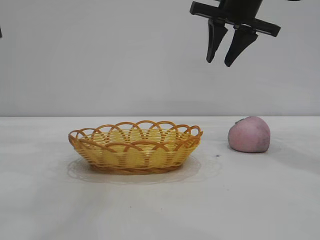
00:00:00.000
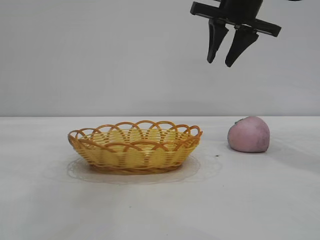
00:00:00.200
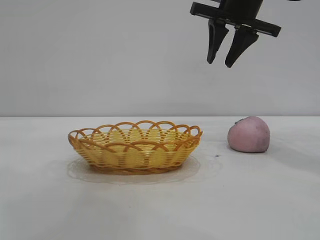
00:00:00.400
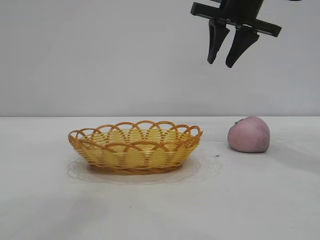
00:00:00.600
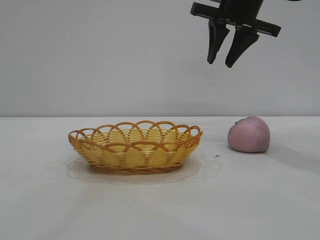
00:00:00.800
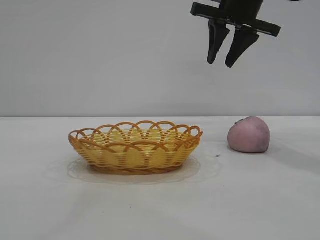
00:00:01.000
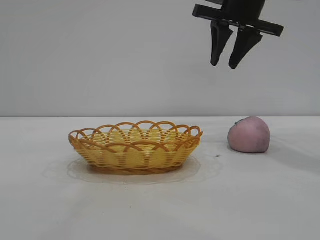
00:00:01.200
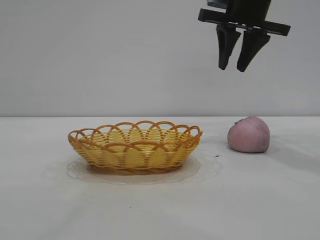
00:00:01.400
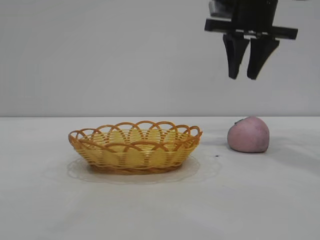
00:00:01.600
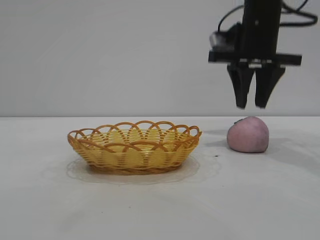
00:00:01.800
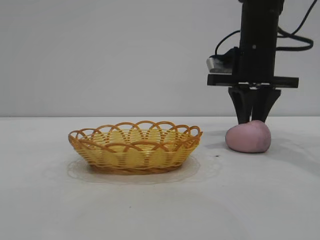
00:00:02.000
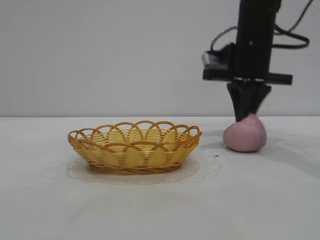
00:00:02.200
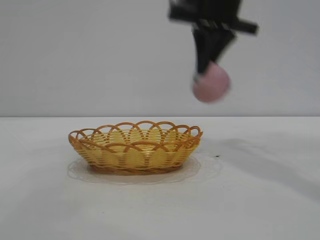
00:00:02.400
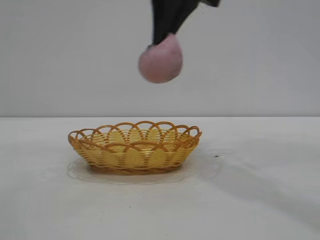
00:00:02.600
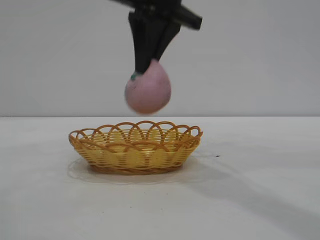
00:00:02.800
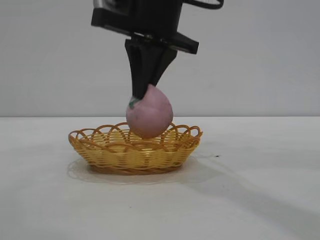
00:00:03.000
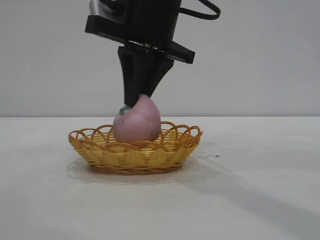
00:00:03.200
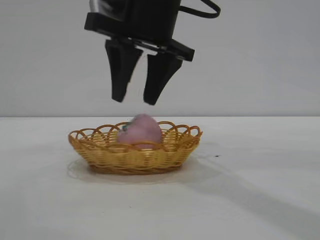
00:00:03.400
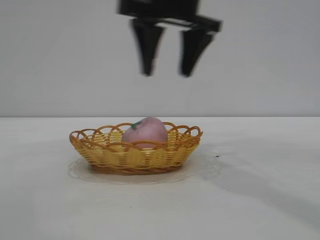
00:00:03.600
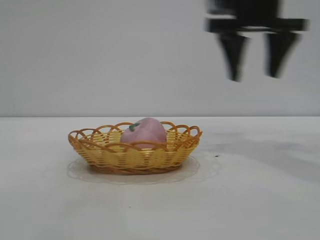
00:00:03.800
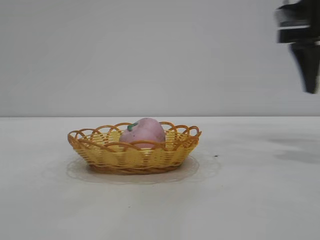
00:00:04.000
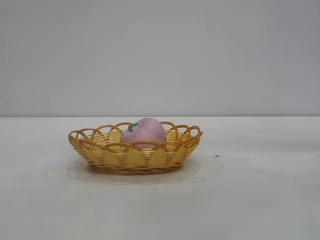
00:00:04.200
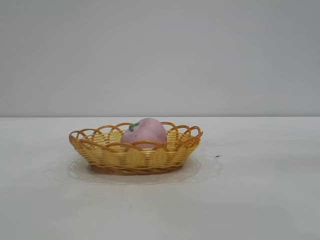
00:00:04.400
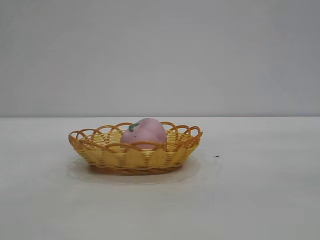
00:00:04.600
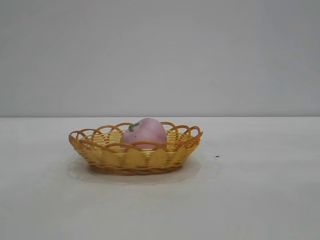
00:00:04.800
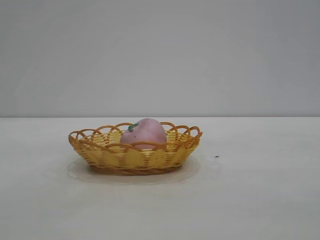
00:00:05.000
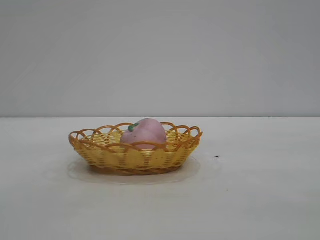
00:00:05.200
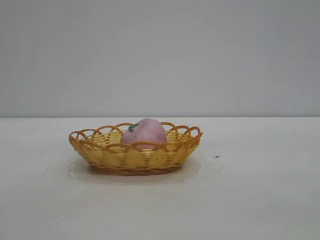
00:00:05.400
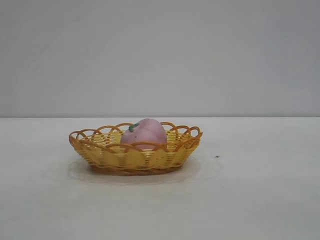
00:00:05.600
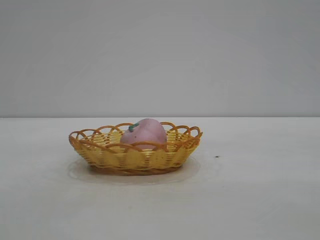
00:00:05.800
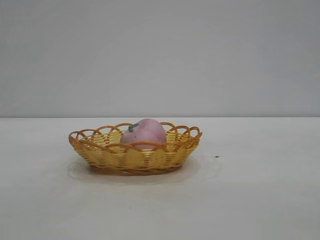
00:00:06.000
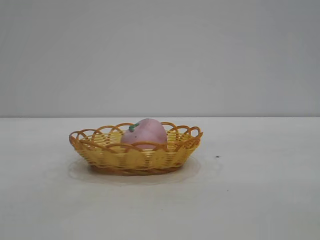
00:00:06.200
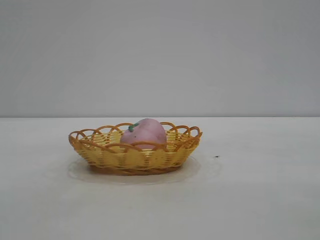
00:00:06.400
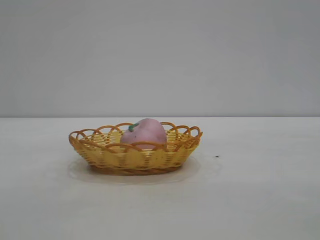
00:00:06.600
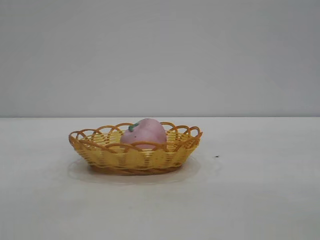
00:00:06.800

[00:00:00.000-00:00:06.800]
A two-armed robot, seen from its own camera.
Task of the whole recording: pick up the peach and put it into the basket.
Step, 00:00:00.000 to 00:00:02.200: Pick up the peach.
Step, 00:00:02.400 to 00:00:03.400: place the peach into the basket.
